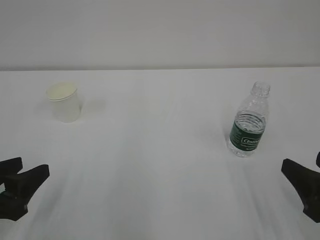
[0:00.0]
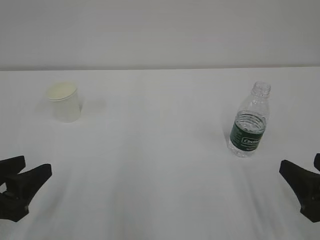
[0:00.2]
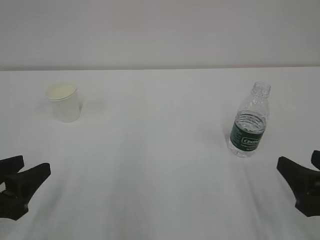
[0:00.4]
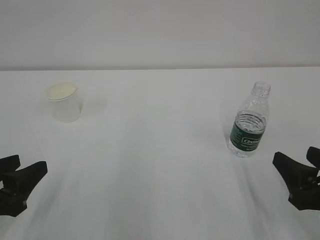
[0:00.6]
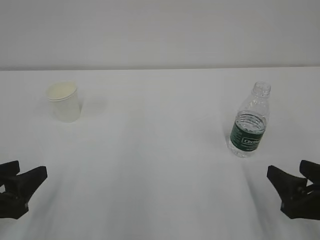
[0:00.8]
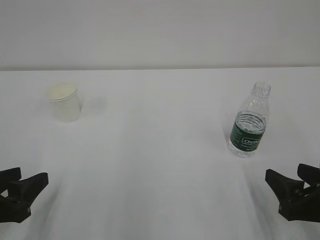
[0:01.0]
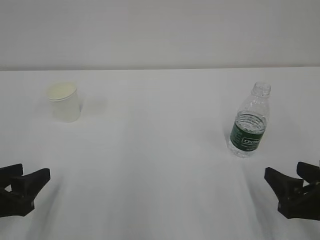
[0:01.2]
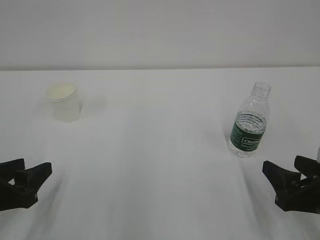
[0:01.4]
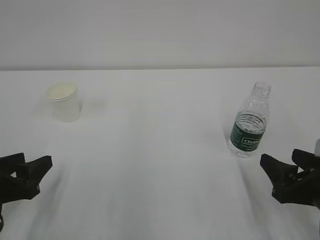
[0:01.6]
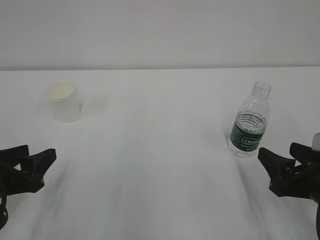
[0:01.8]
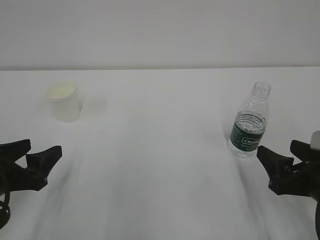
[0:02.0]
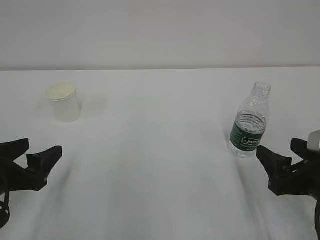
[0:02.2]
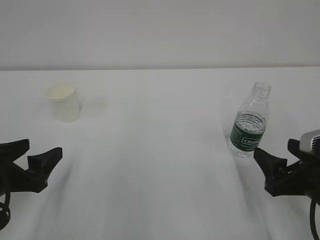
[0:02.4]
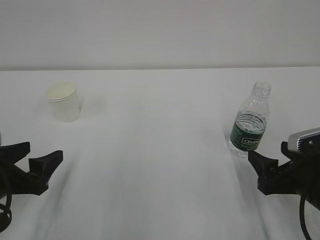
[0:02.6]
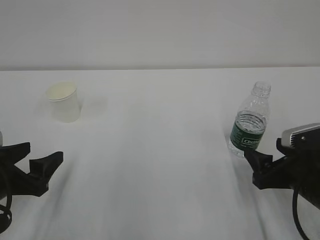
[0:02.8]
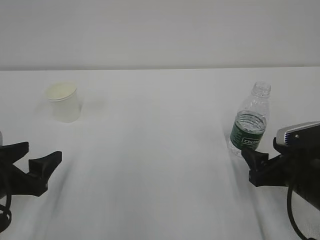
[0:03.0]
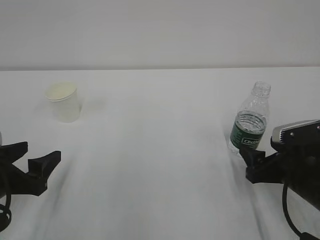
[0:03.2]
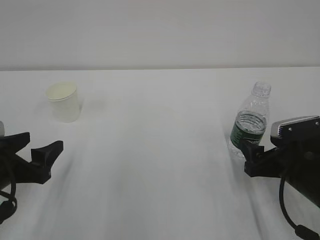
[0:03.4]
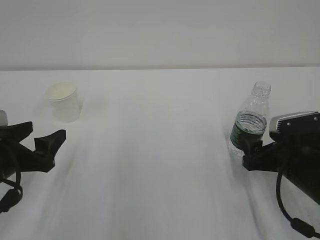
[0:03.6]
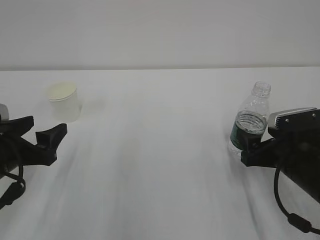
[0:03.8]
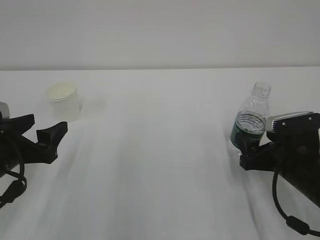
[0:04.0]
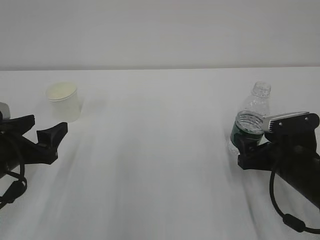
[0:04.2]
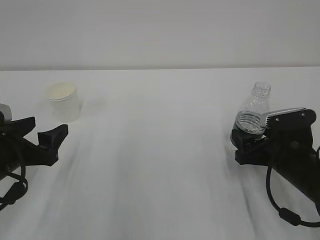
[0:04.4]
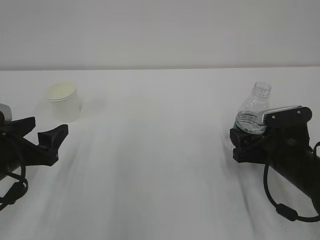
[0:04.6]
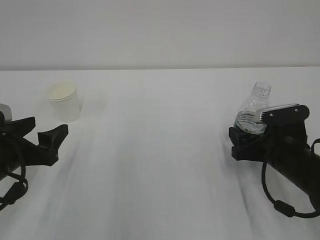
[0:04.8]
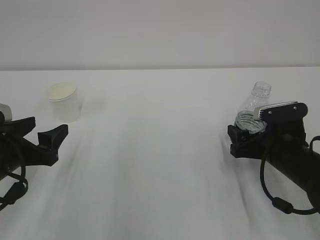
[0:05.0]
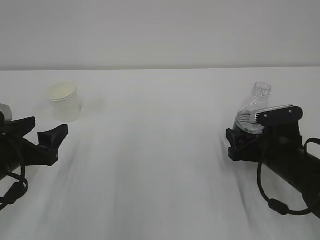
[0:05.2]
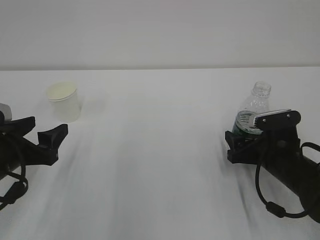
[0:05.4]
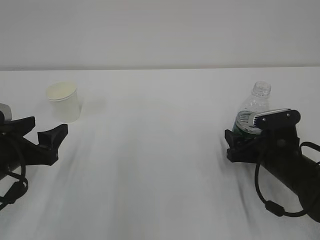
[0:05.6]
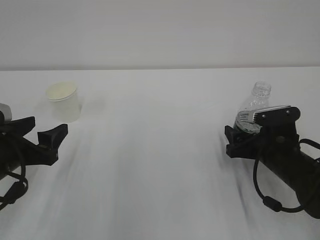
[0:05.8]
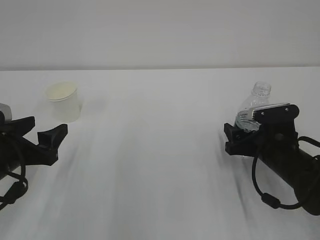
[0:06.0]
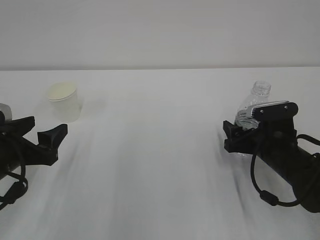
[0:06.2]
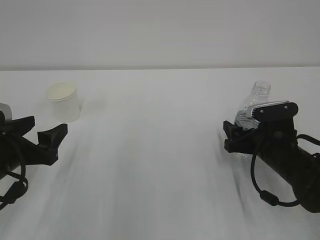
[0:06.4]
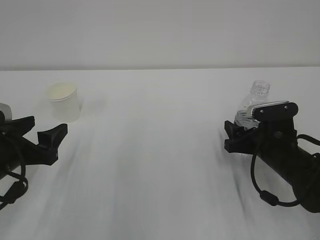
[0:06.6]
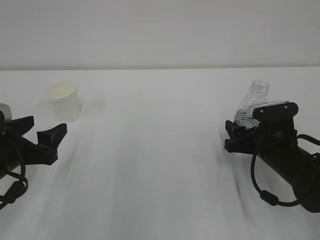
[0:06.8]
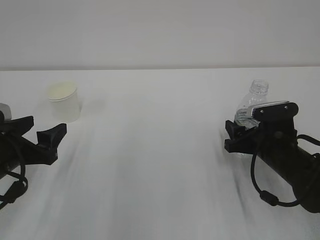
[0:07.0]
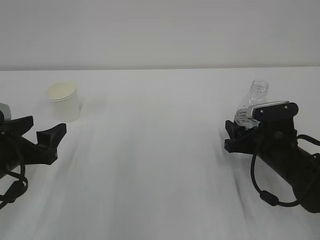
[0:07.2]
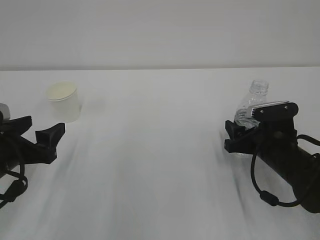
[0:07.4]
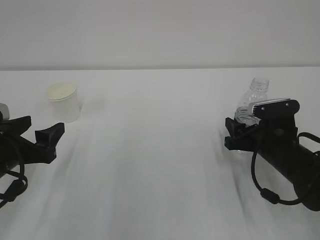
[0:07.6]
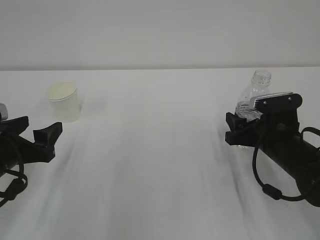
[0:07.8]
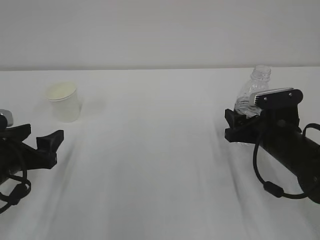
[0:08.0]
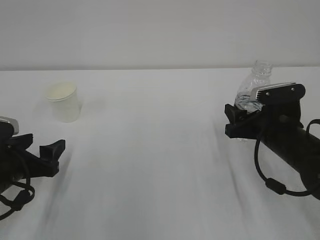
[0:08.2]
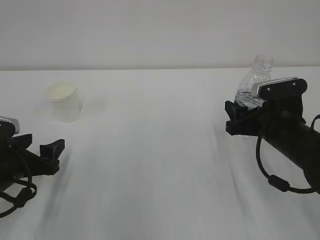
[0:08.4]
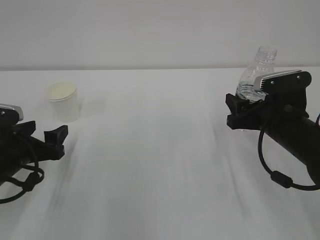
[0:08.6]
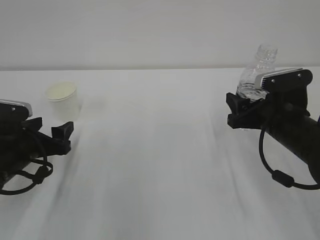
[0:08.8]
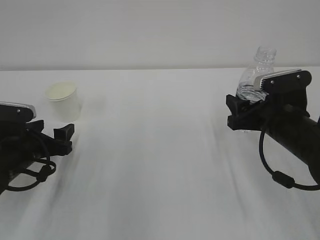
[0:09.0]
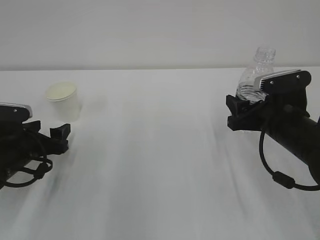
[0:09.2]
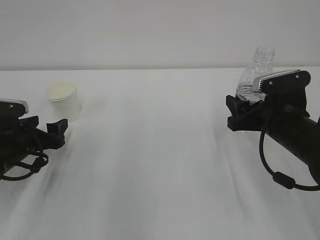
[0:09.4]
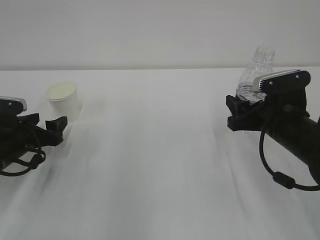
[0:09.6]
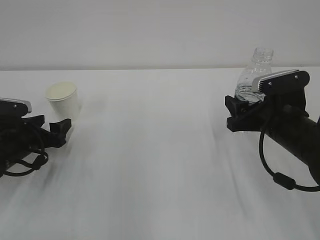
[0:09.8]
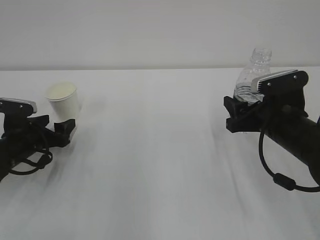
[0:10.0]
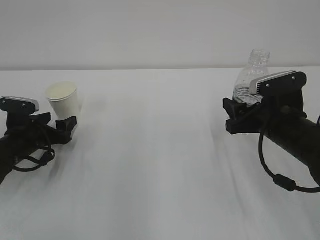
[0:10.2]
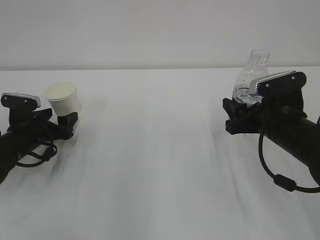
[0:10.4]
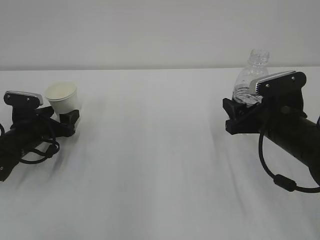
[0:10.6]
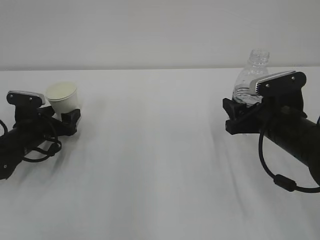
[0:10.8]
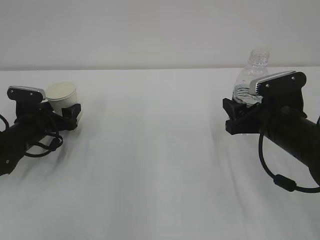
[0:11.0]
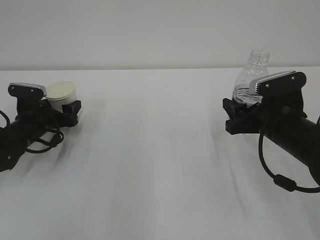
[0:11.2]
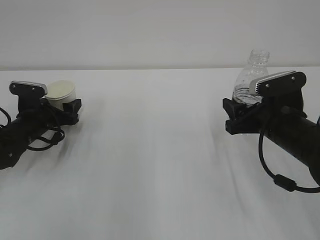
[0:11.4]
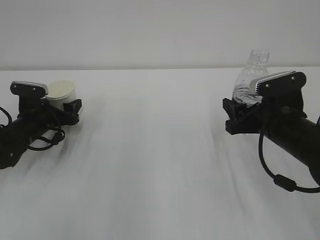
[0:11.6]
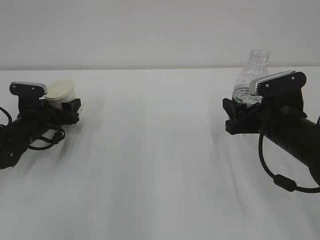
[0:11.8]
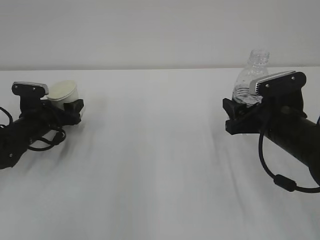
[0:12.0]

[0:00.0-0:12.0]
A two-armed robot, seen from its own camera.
0:00.0 to 0:01.6: The right gripper moves approximately 5 cm.
0:01.6 to 0:03.0: The right gripper shifts roughly 5 cm forward, and opens up. Meanwhile the left gripper opens its fingers.
0:03.0 to 0:04.4: The grippers stay close to where they were, moving slightly.
0:04.4 to 0:06.0: The grippers move only a little.
0:06.0 to 0:07.6: The right gripper closes its fingers.
0:07.6 to 0:09.0: The left gripper moves forward, about 5 cm; the right gripper goes roughly 5 cm upward.
0:09.0 to 0:10.4: The left gripper travels forward by approximately 5 cm.
0:10.4 to 0:12.0: The left gripper closes up.

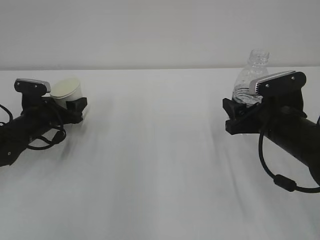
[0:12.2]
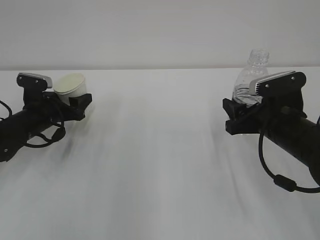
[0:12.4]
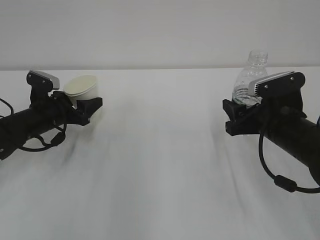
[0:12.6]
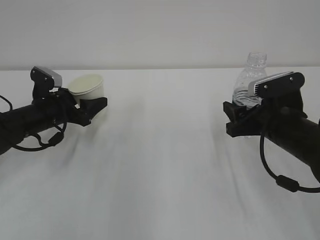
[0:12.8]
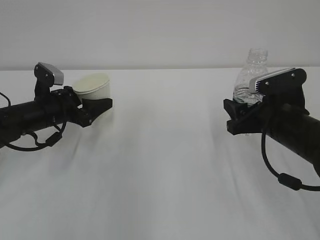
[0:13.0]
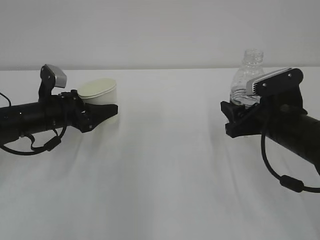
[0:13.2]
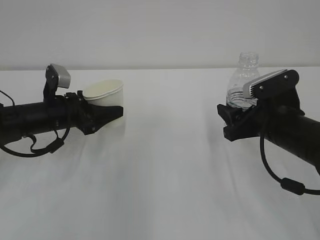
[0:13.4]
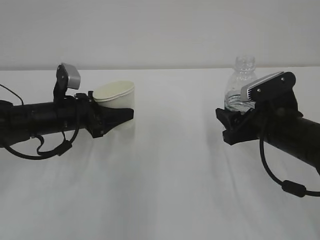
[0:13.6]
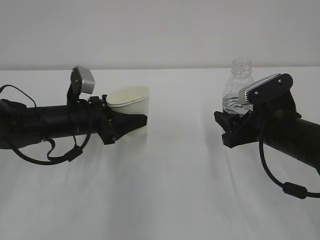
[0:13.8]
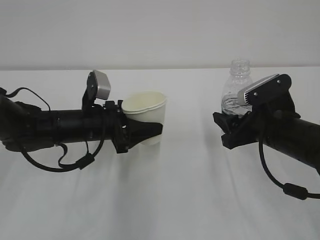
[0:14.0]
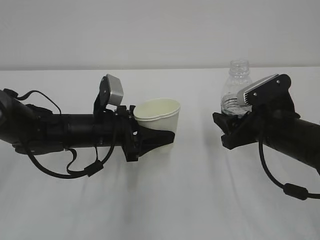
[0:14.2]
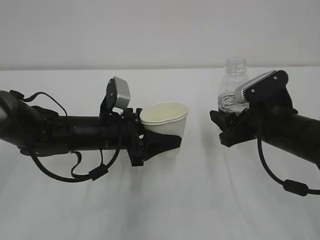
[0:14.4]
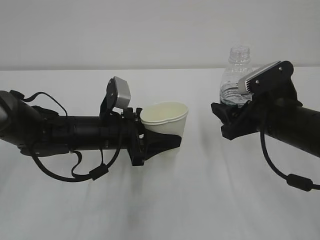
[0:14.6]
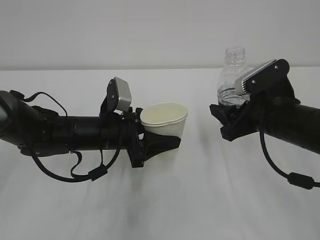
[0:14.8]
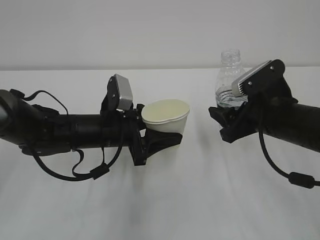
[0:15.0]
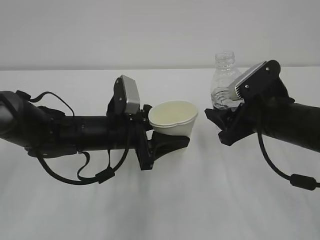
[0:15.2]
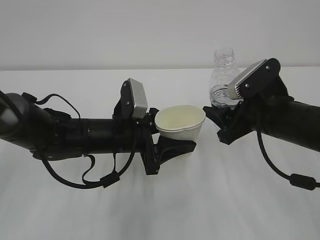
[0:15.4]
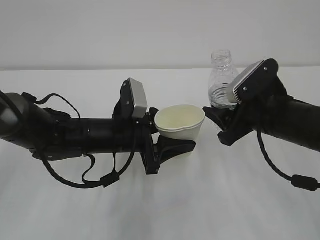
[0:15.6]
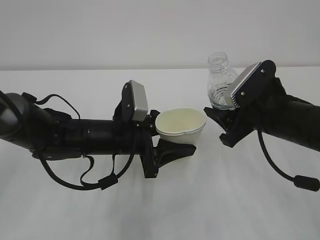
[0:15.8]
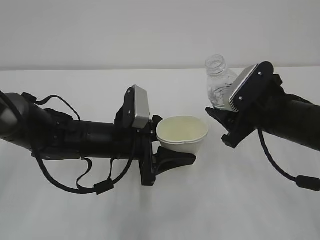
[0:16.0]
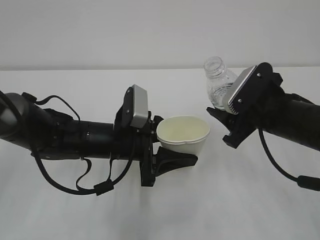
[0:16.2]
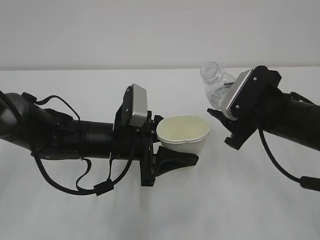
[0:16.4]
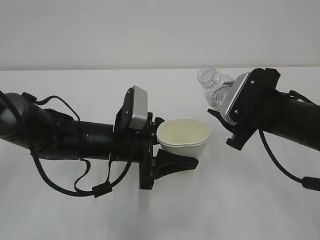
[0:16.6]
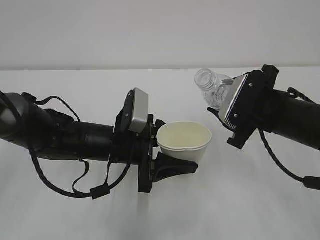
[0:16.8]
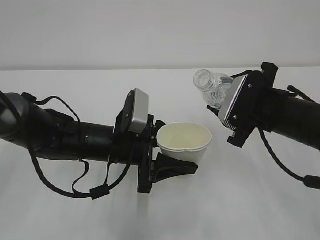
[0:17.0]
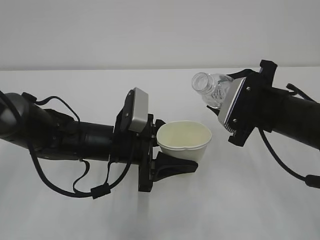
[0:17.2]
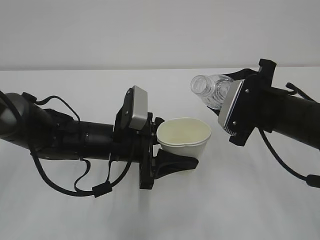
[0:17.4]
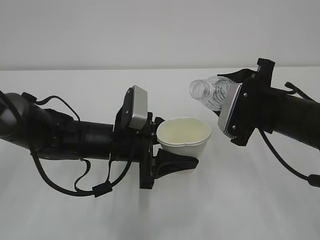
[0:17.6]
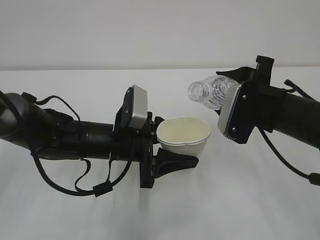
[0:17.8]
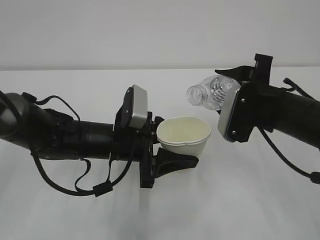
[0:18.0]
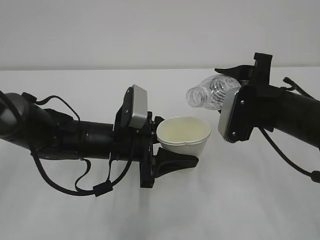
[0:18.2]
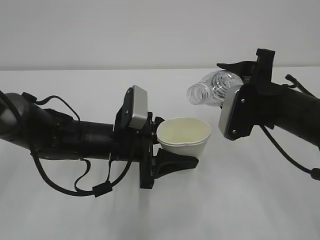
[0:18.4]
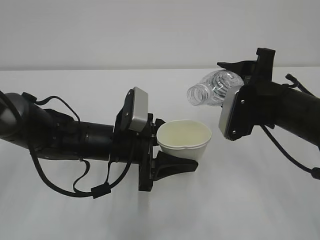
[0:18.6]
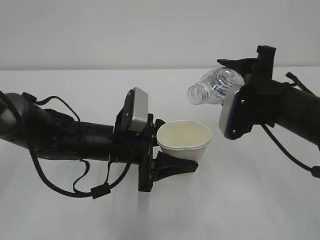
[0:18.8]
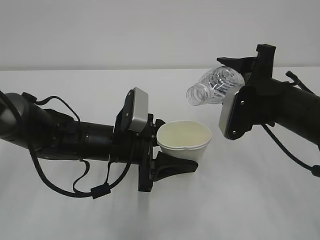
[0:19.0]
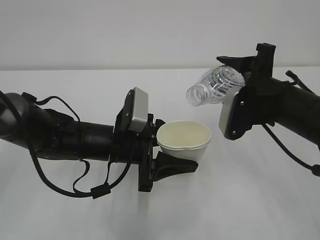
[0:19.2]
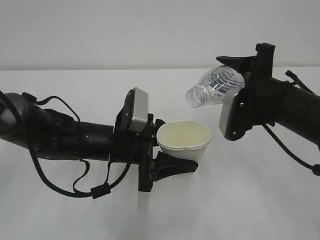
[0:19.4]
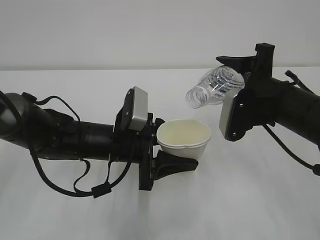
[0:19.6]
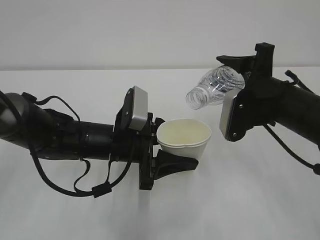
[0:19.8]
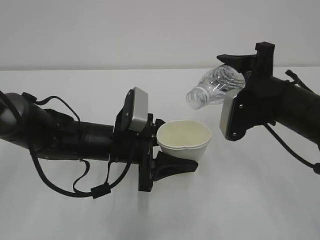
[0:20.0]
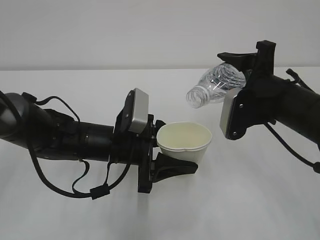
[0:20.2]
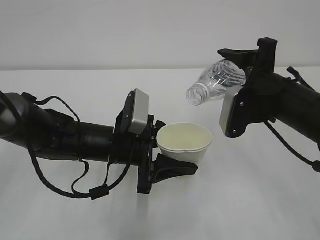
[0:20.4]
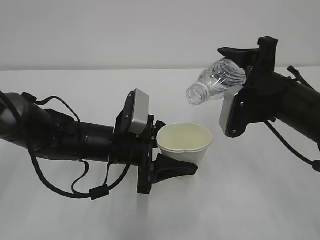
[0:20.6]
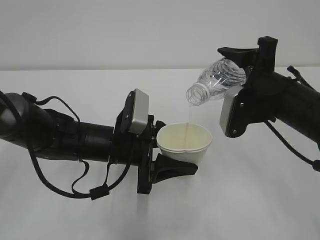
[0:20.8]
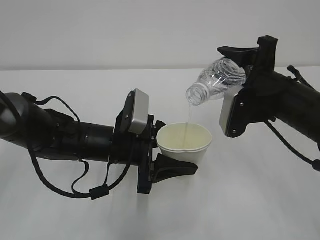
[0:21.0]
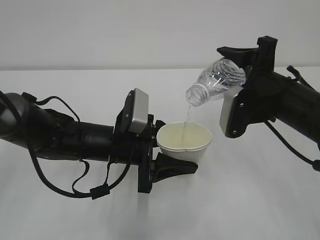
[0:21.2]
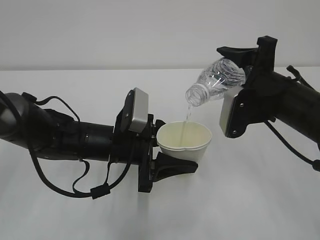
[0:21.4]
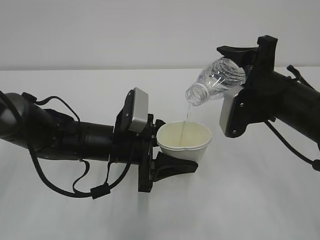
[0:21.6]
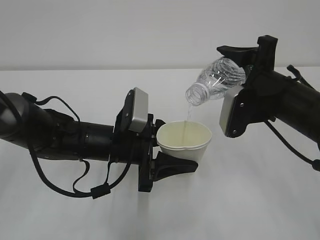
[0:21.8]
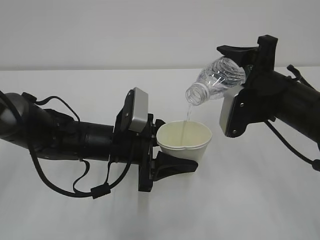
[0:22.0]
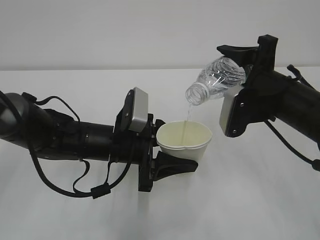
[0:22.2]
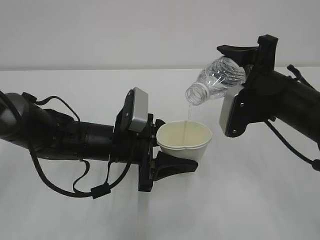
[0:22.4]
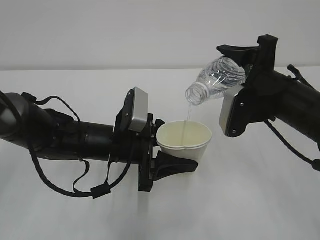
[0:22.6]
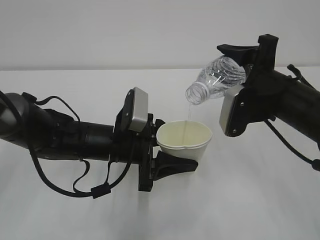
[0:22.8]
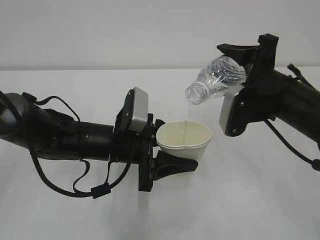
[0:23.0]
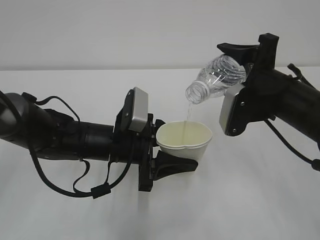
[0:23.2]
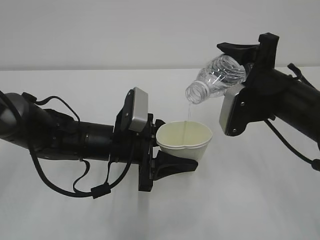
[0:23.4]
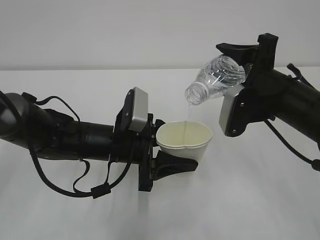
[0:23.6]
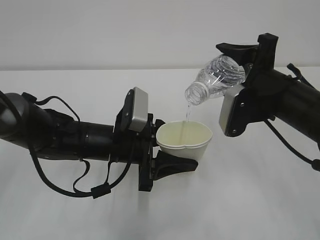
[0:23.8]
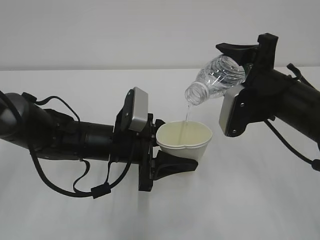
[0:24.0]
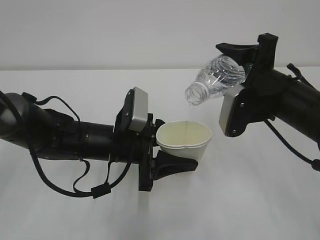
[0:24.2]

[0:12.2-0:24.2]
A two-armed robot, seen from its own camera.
0:12.2 to 0:13.8: The left gripper shifts about 15 cm to the right, upward and backward.
0:13.8 to 0:15.2: The left gripper is displaced to the right by approximately 10 cm.
0:18.2 to 0:21.2: There are only small adjustments of the grippers.
0:21.2 to 0:24.2: The two grippers keep their place.
